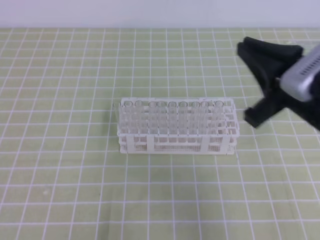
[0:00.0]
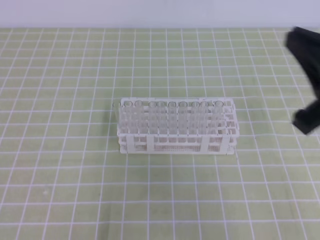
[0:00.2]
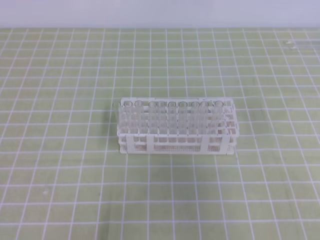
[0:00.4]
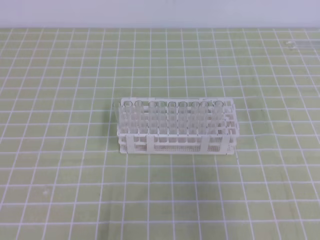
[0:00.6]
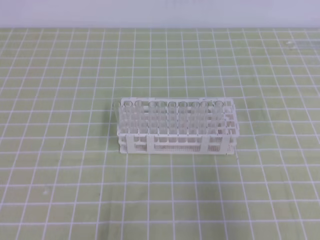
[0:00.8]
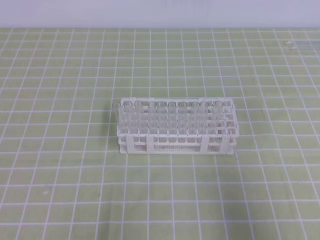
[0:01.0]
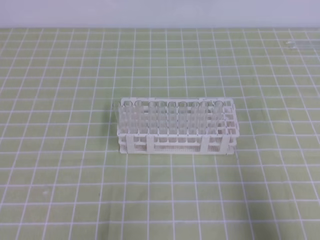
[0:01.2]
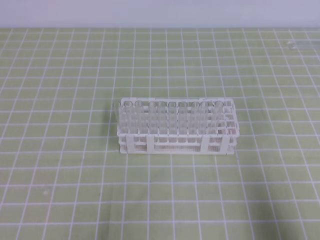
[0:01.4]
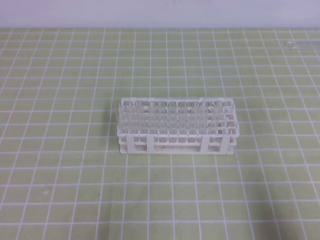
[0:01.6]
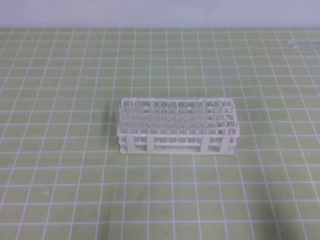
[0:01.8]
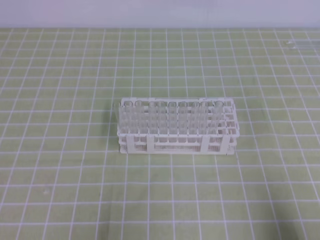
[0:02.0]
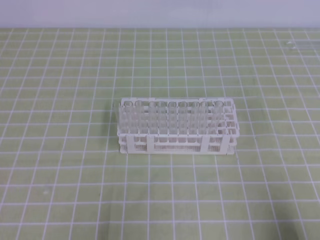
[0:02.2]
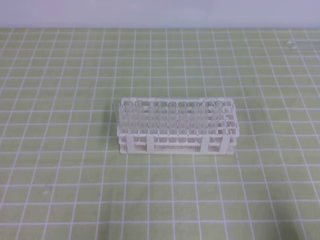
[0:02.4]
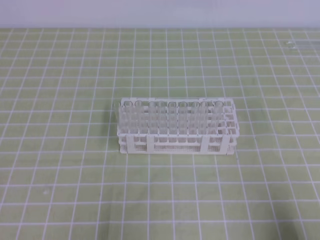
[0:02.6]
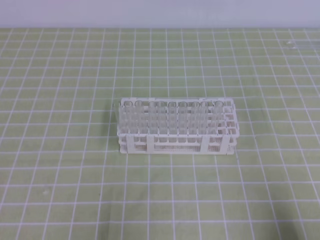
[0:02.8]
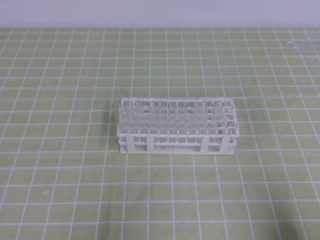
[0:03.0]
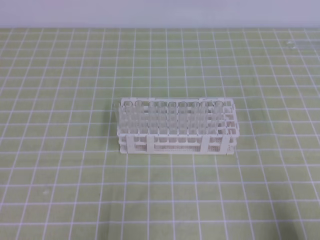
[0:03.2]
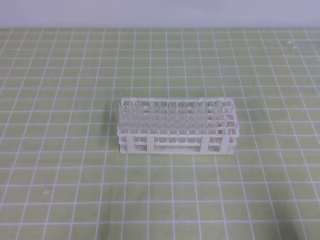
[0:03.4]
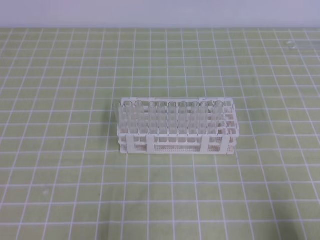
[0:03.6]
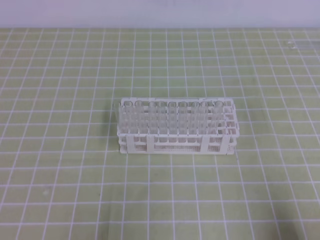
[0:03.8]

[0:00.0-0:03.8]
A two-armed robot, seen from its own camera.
0:00.0 to 0:01.2: The right gripper is displaced backward and to the right by roughly 20 cm.
0:01.2 to 0:02.6: The right gripper goes some 10 cm downward.
0:02.6 to 0:03.8: Both grippers stay put.
